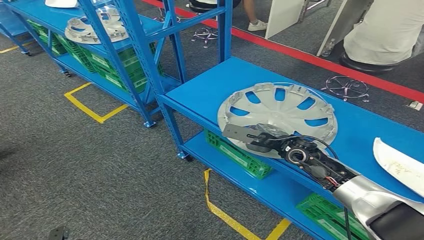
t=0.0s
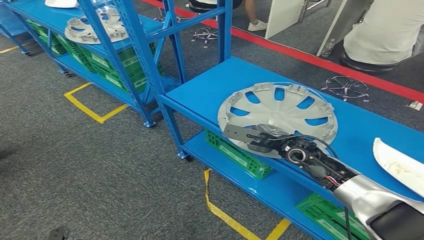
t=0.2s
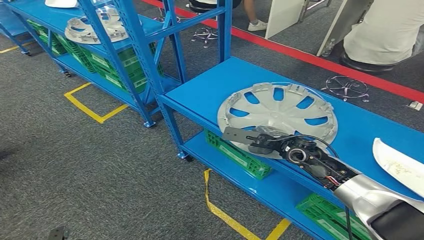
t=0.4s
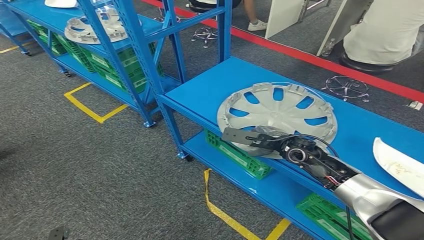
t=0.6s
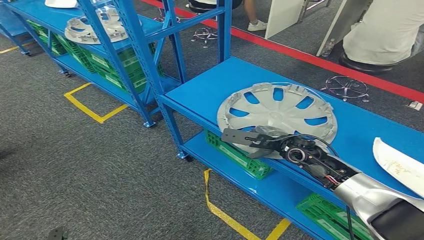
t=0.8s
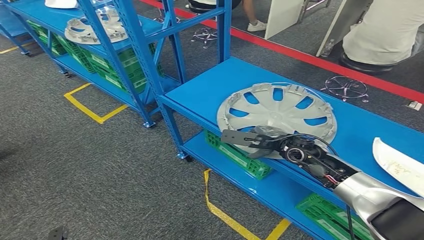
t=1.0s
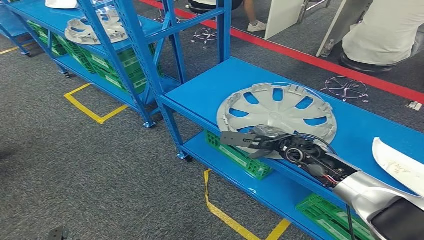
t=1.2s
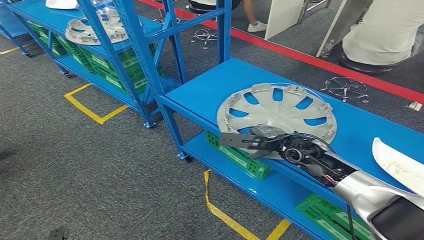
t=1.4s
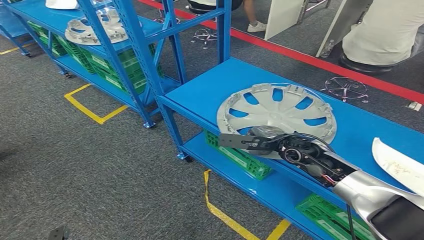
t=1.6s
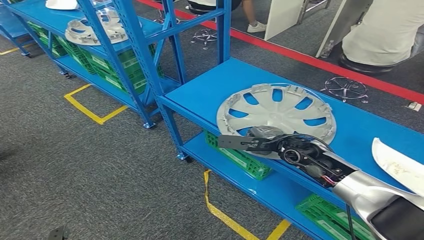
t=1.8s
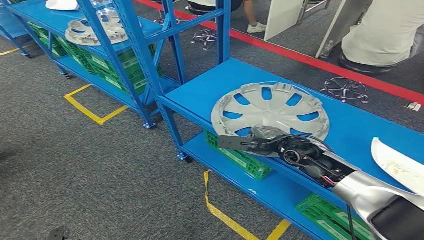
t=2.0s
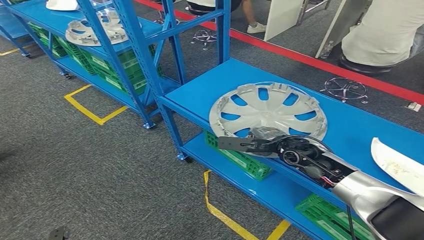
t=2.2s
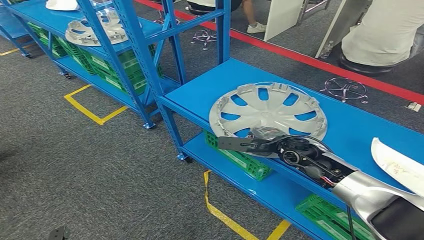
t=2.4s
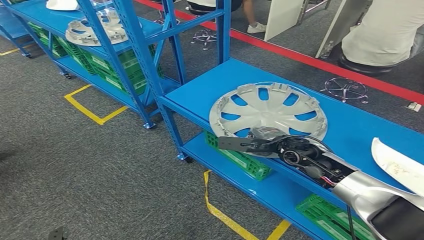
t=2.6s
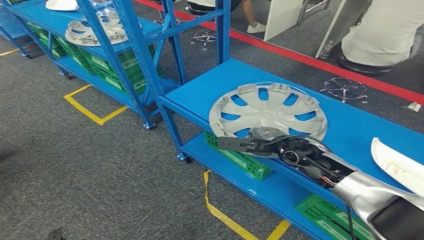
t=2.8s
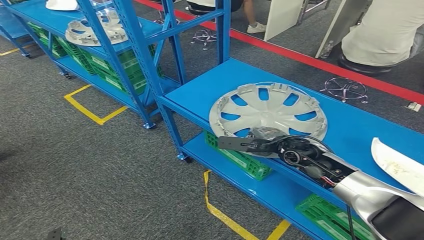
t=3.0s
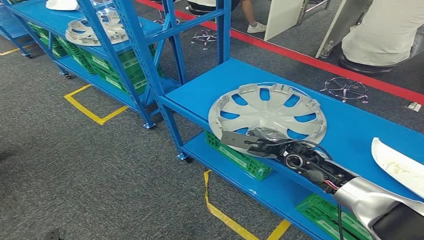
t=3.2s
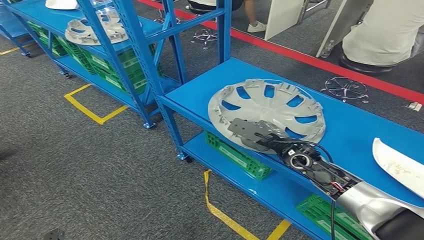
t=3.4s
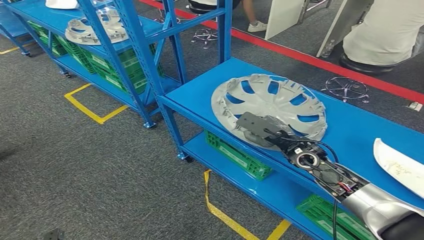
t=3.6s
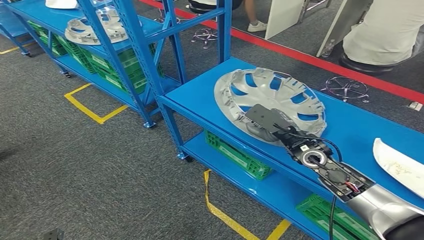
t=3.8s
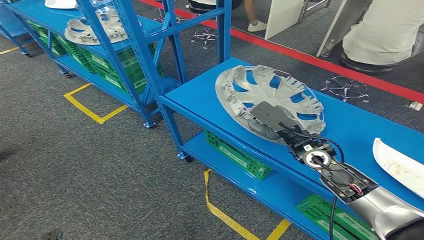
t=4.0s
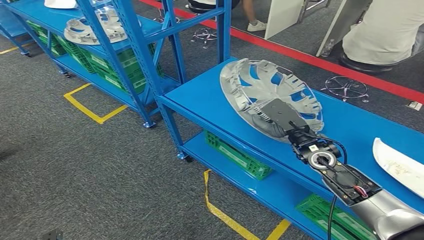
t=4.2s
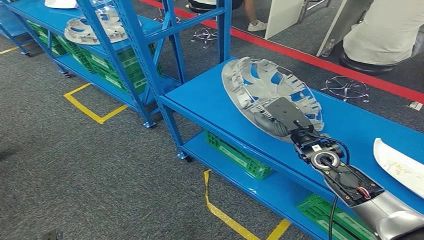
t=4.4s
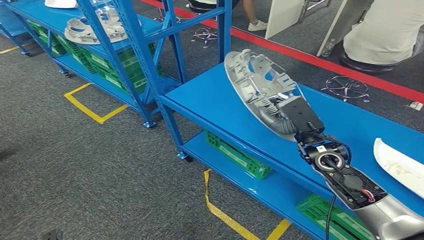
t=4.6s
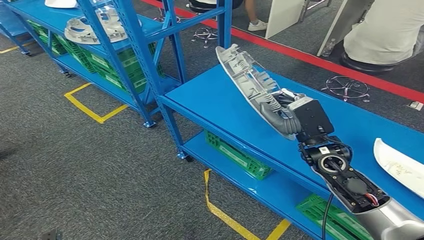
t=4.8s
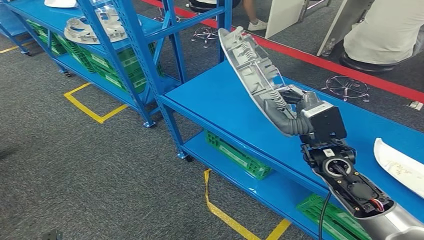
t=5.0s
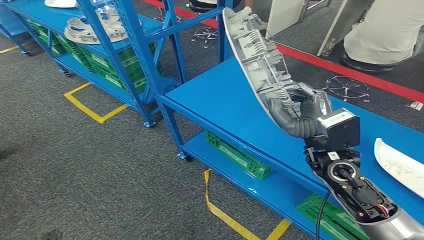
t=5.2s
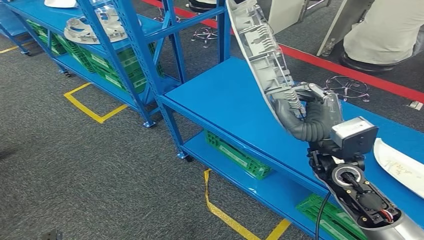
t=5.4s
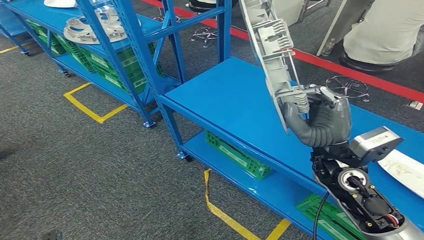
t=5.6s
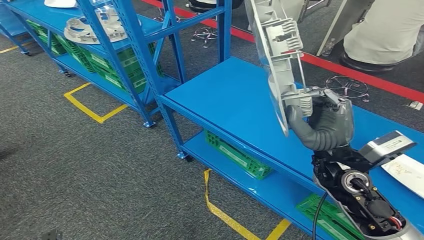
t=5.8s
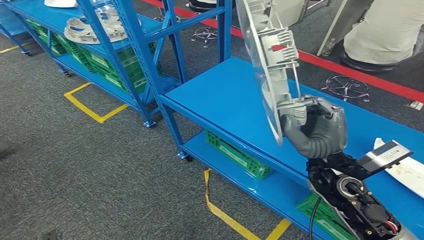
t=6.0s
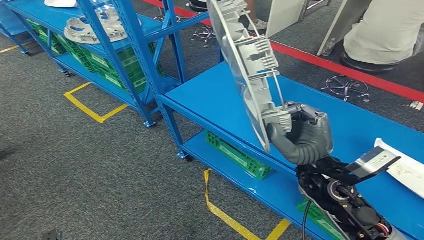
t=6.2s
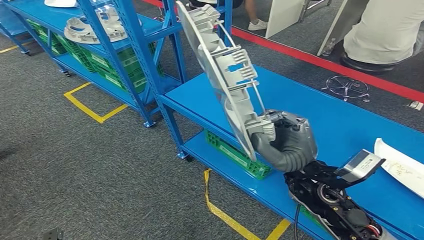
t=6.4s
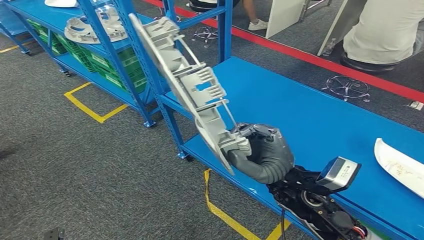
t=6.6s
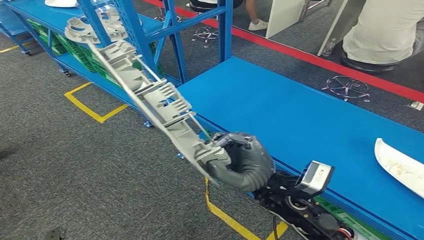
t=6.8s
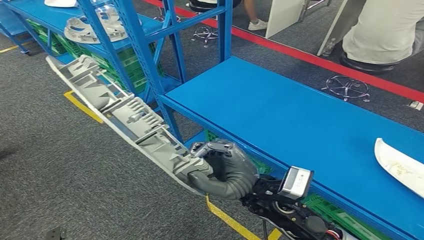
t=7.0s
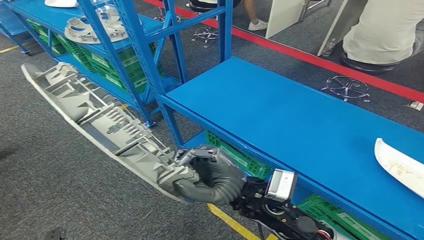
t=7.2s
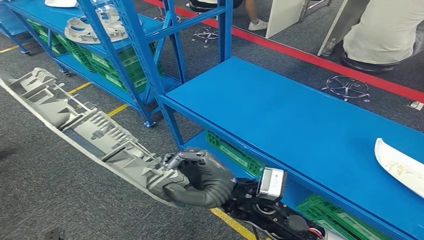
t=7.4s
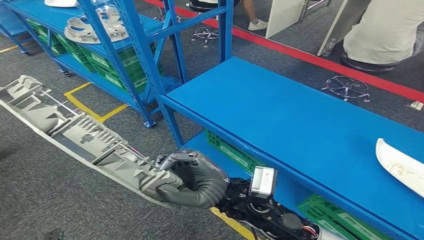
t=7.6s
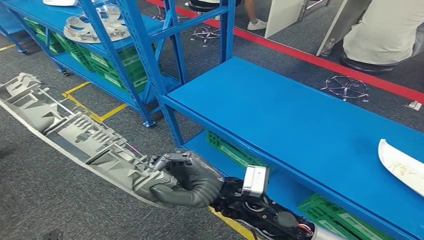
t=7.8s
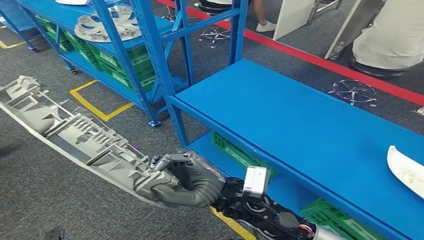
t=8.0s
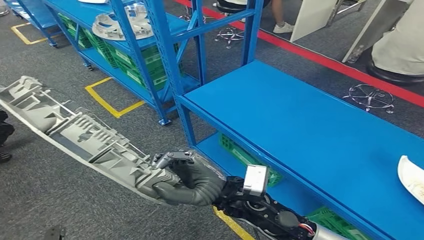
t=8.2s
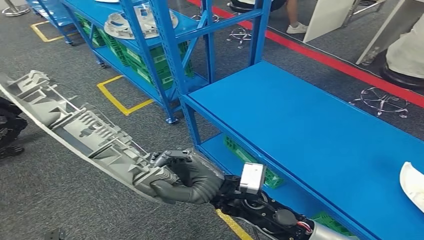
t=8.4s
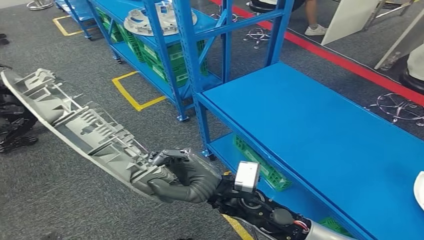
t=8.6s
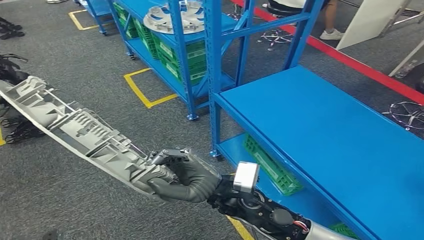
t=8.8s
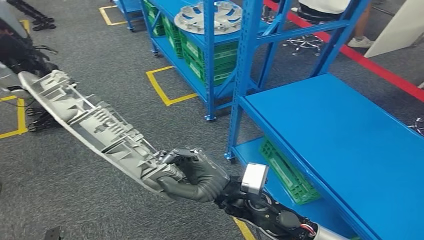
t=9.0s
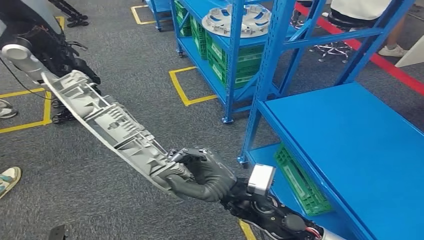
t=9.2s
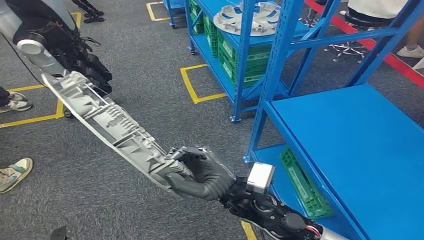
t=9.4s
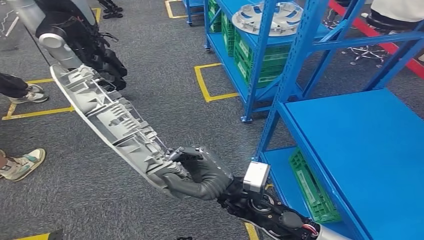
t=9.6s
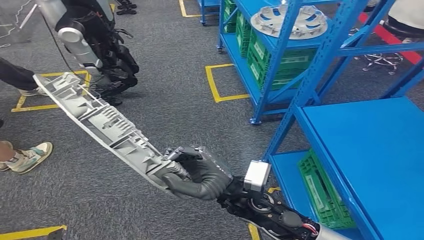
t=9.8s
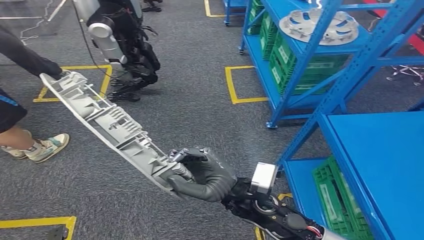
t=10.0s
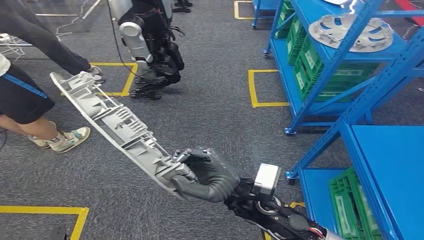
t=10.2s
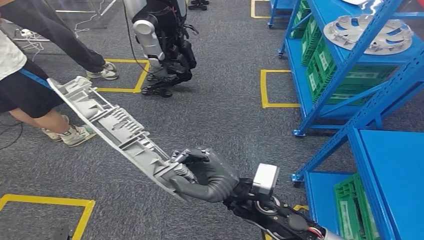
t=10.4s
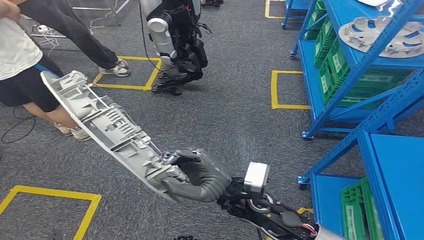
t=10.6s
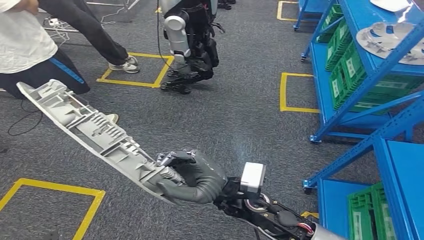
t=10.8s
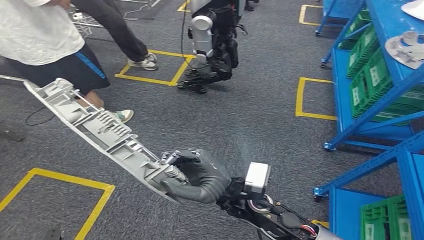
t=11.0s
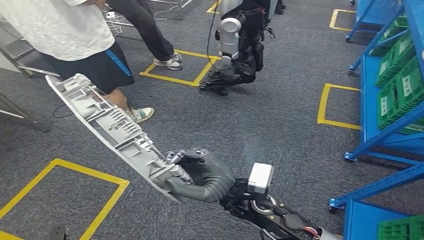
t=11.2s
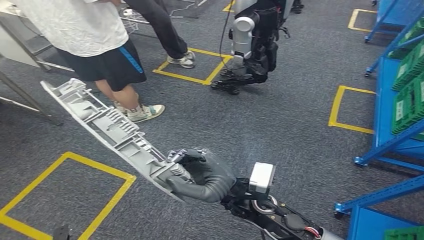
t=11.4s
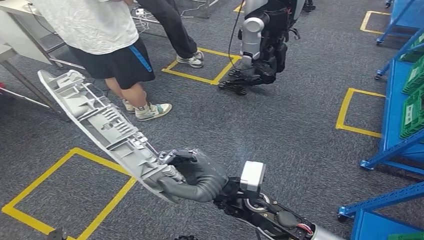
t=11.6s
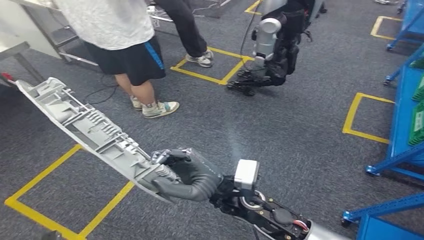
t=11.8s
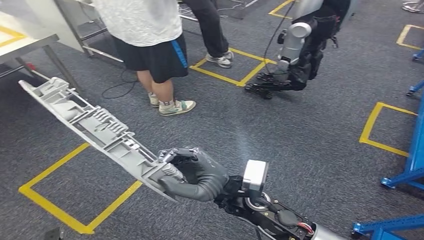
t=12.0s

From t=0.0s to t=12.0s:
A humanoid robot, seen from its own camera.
Step, from t=0.0s to t=6.4s: Pick up the small component from the shelf.
From t=0.0s to t=1.6s: There are only small adjustments of the hands.
From t=1.6s to t=3.0s: The two hands keep their place.
From t=3.0s to t=4.4s: The right hand ends up some 5 cm from where it was.
From t=4.4s to t=6.0s: The right hand shifts about 10 cm backward.

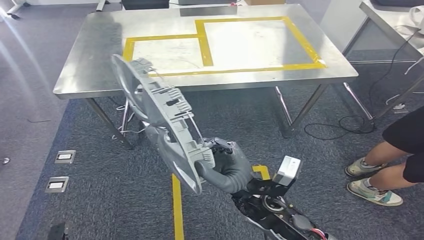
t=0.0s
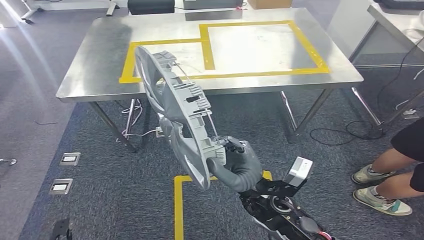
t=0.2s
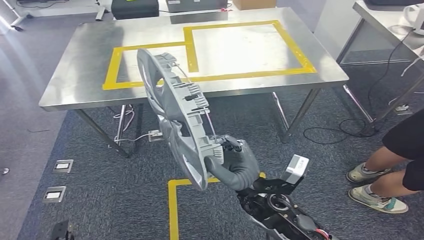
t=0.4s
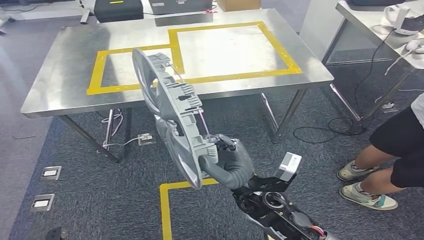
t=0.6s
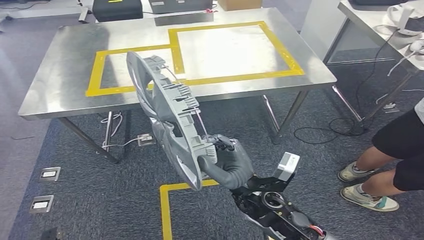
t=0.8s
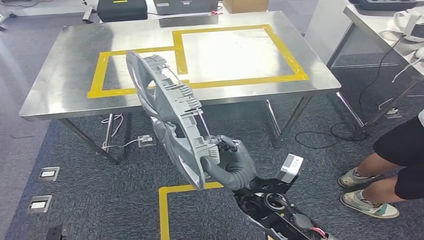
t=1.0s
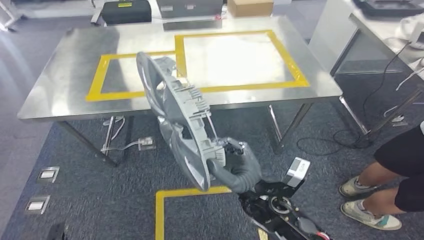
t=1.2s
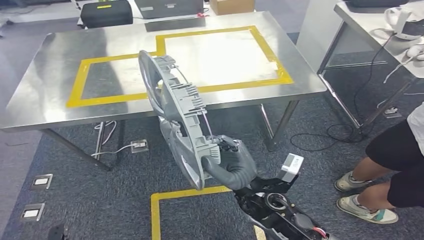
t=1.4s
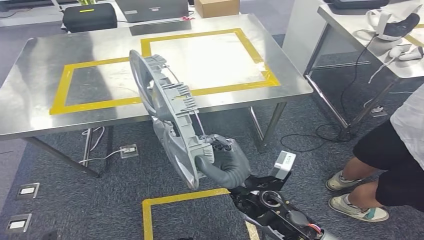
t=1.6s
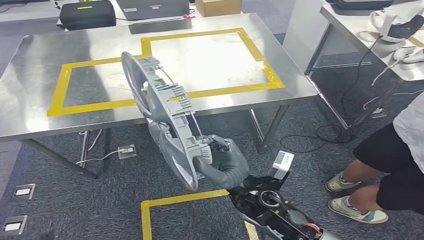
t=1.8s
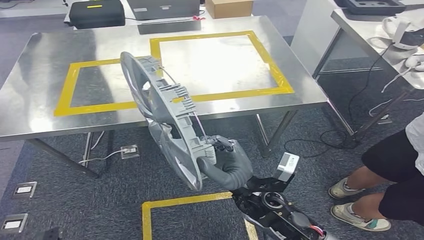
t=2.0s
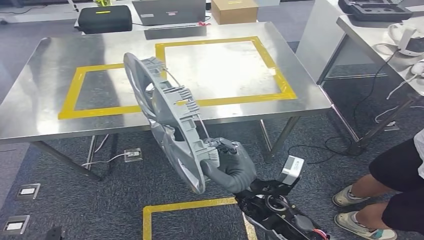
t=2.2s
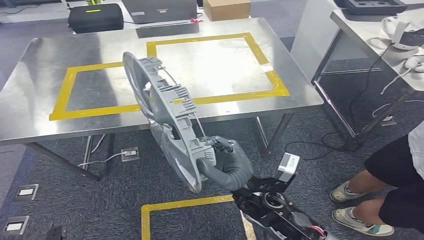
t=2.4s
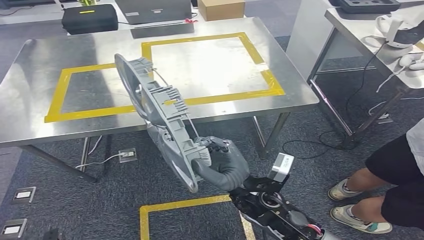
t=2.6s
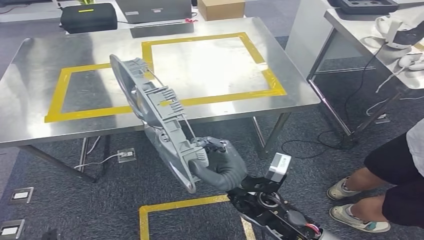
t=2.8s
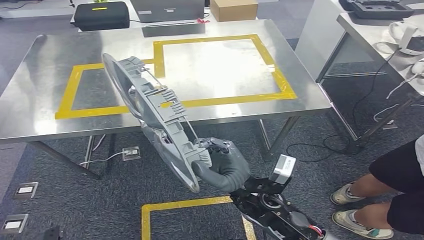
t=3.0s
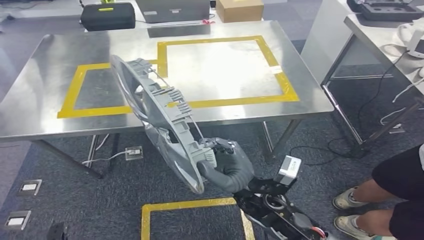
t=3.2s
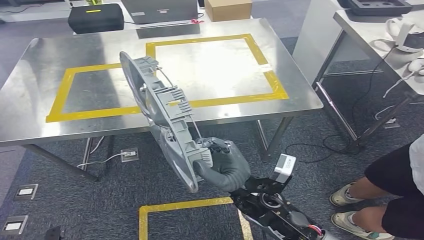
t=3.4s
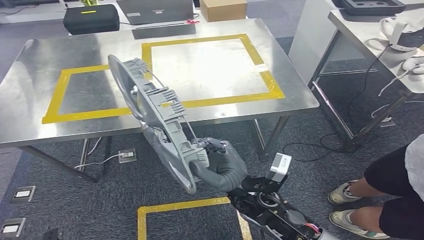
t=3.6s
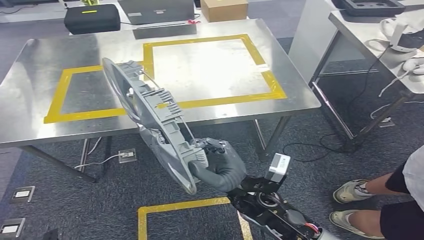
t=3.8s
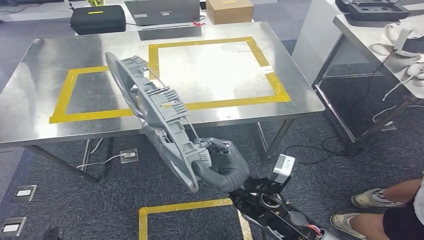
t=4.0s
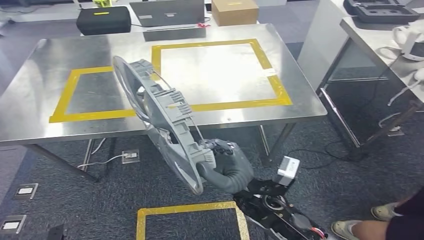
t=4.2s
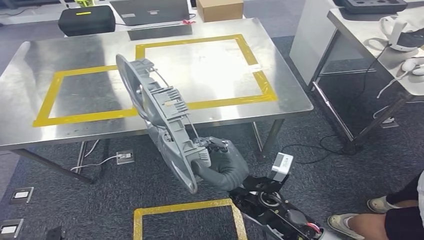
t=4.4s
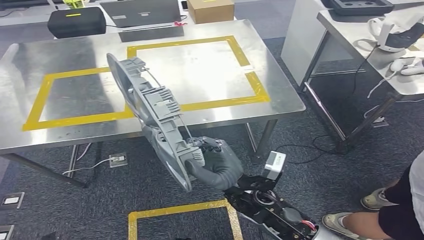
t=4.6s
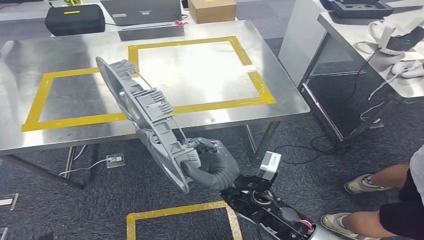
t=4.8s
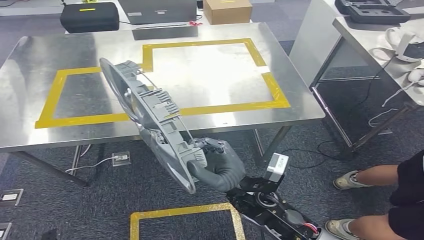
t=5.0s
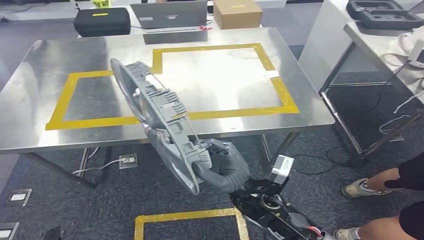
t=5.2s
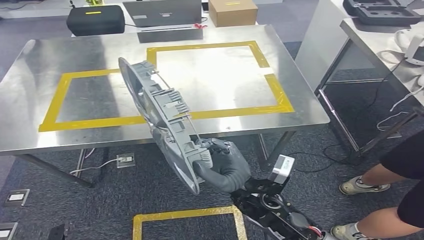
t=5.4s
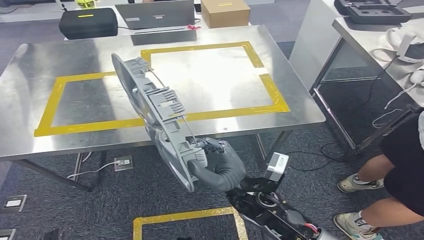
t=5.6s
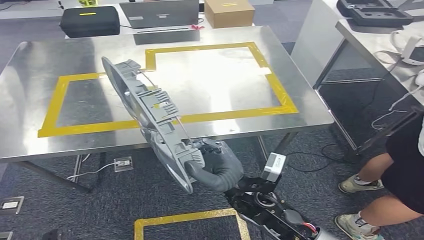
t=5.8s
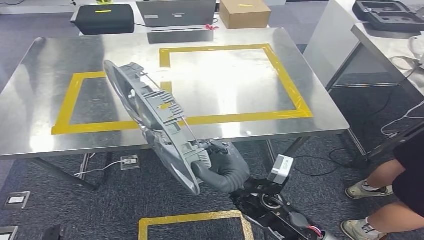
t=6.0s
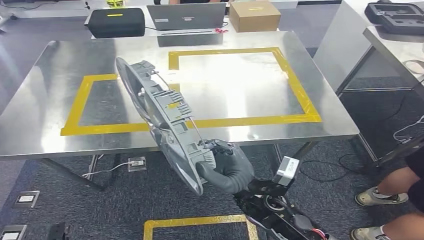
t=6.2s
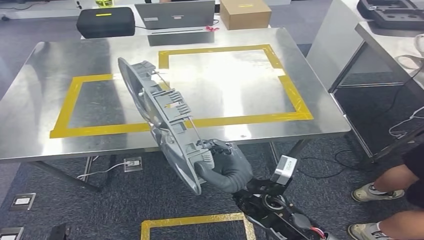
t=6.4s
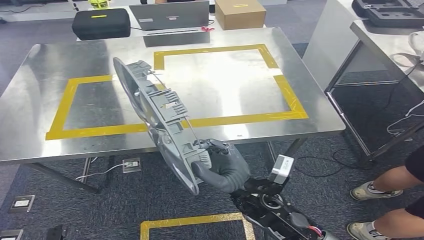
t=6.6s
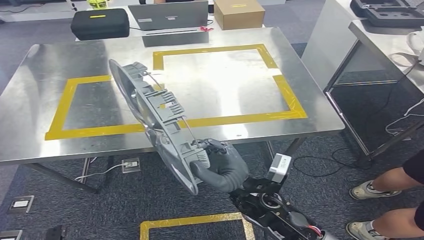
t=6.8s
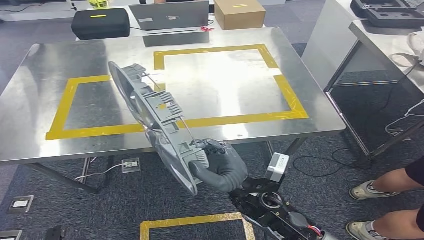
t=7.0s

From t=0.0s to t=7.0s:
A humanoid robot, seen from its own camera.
Step, from t=0.0s to t=3.0s: Bring the small component to the front of the workbench.
